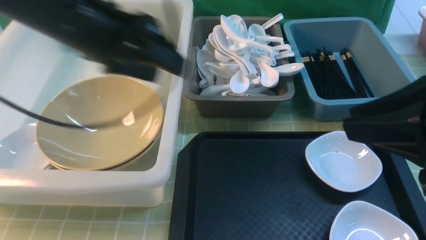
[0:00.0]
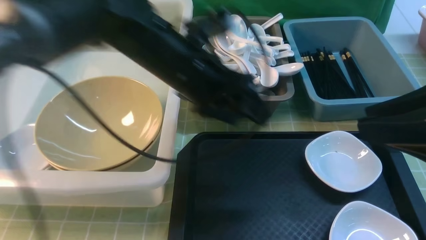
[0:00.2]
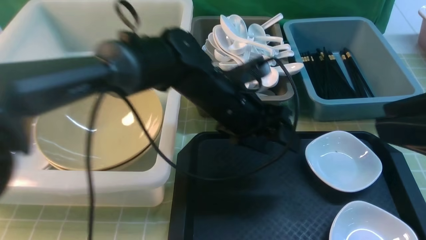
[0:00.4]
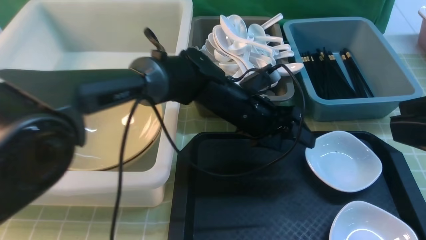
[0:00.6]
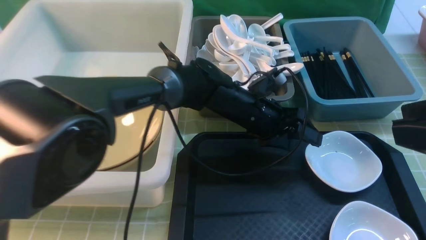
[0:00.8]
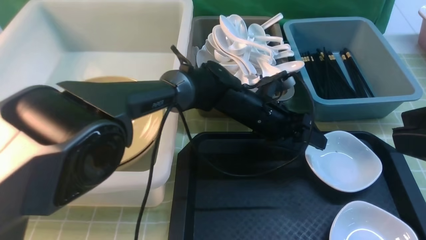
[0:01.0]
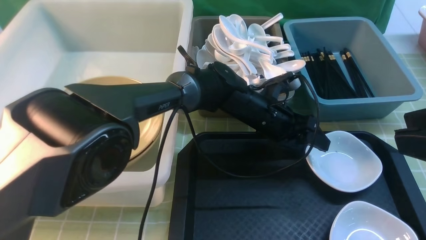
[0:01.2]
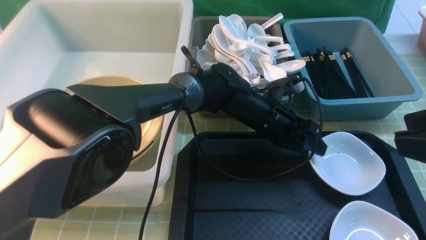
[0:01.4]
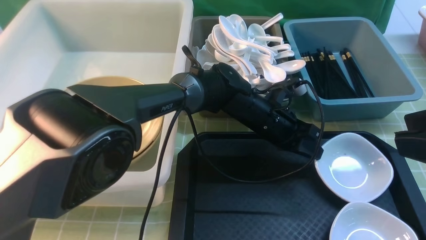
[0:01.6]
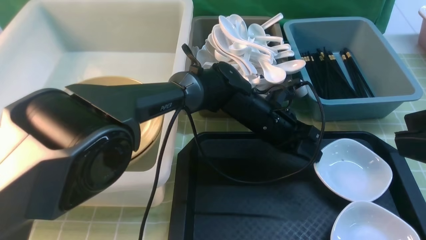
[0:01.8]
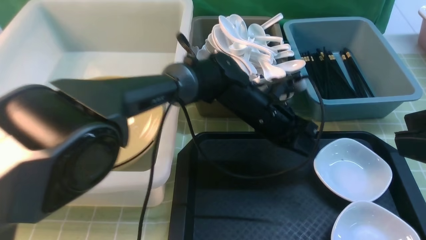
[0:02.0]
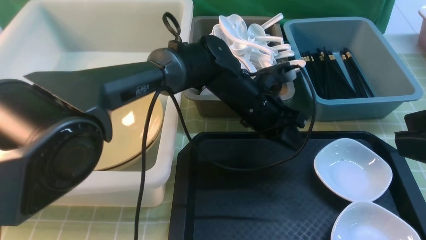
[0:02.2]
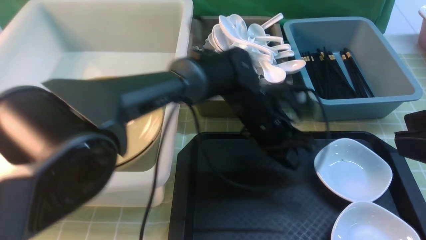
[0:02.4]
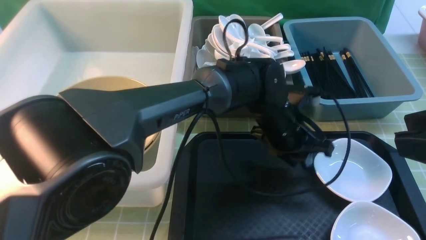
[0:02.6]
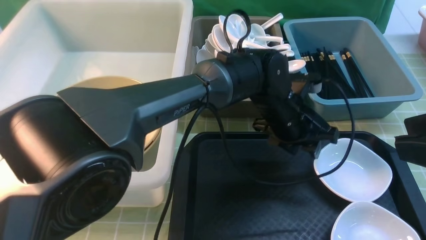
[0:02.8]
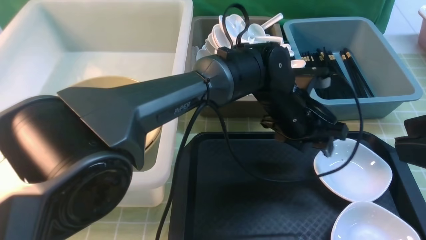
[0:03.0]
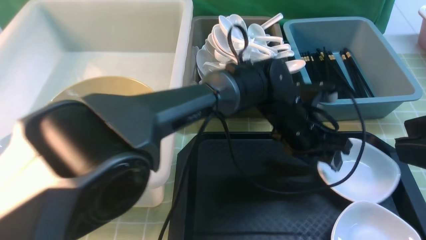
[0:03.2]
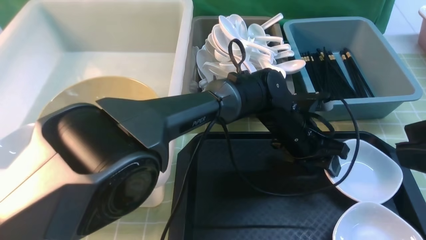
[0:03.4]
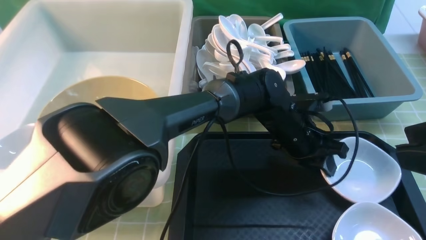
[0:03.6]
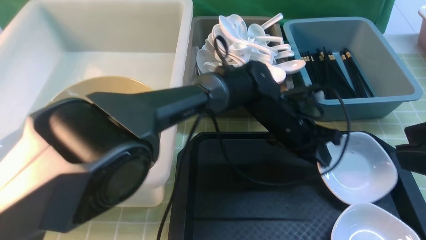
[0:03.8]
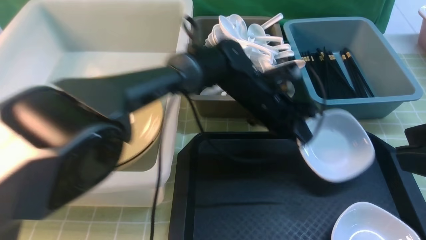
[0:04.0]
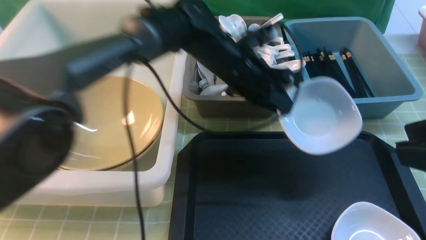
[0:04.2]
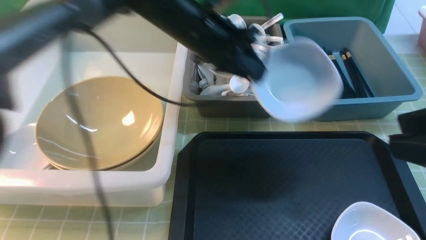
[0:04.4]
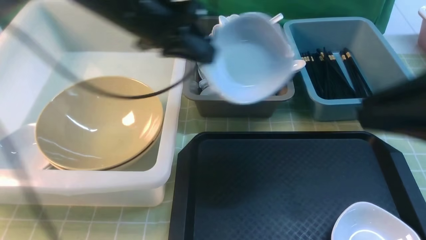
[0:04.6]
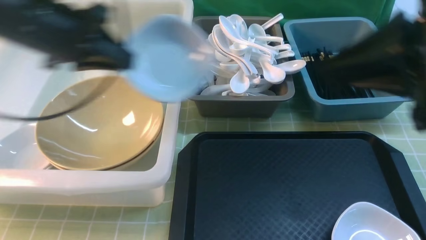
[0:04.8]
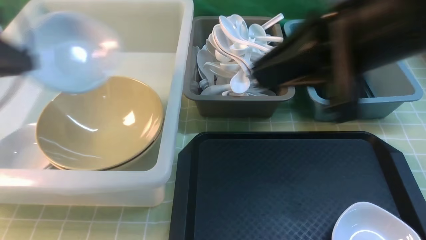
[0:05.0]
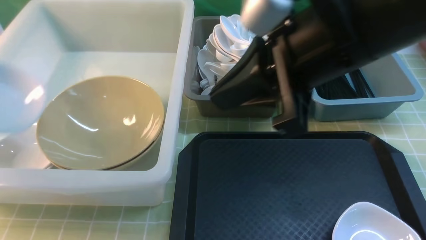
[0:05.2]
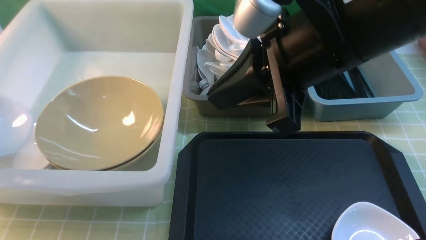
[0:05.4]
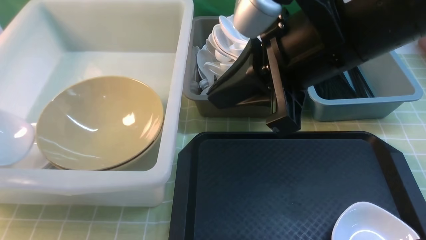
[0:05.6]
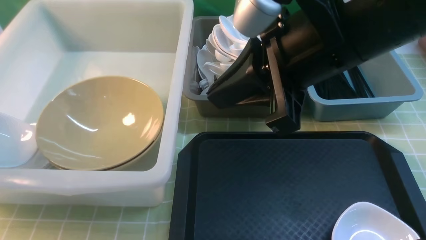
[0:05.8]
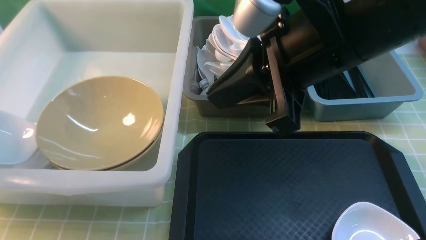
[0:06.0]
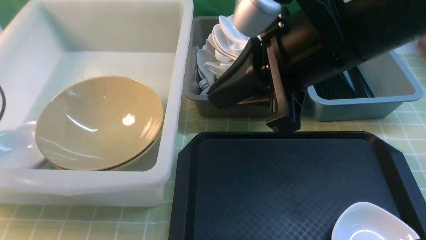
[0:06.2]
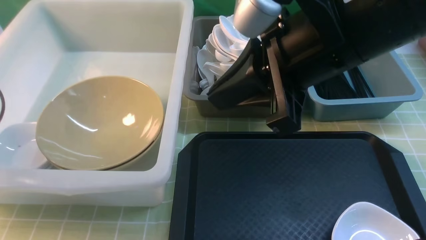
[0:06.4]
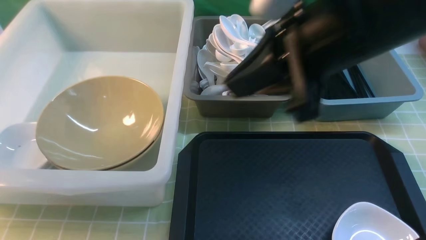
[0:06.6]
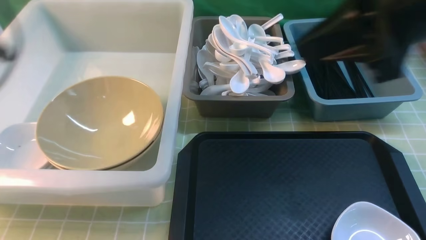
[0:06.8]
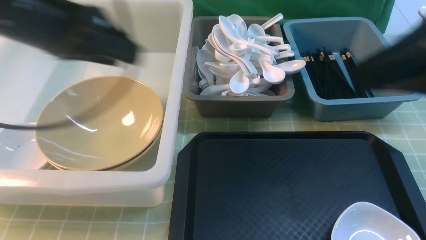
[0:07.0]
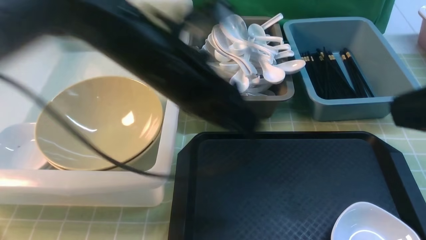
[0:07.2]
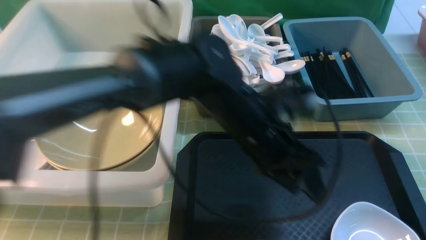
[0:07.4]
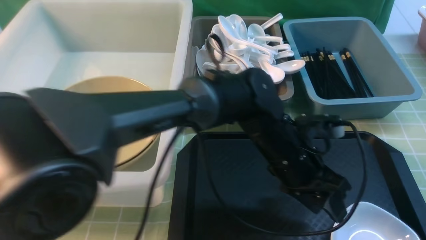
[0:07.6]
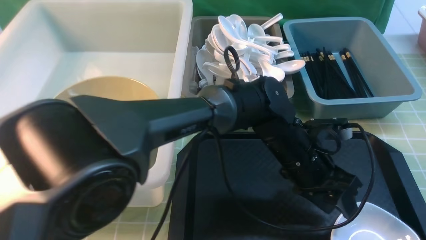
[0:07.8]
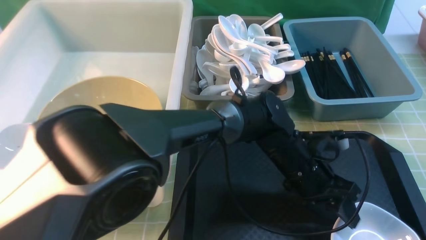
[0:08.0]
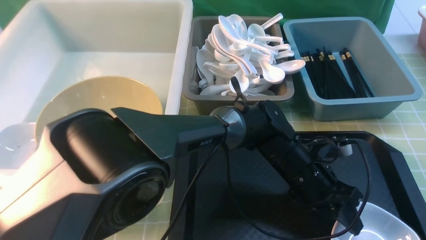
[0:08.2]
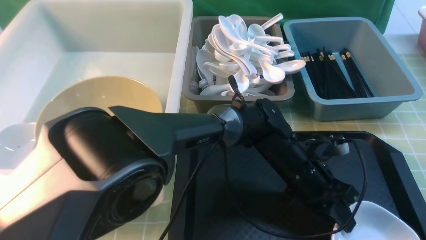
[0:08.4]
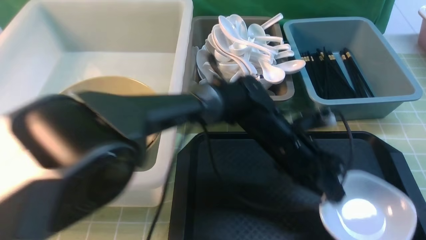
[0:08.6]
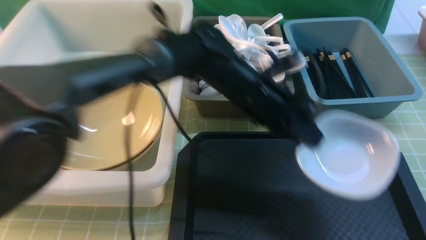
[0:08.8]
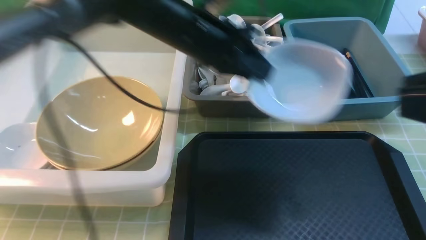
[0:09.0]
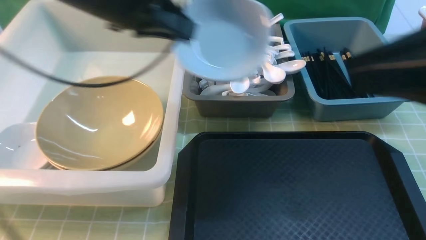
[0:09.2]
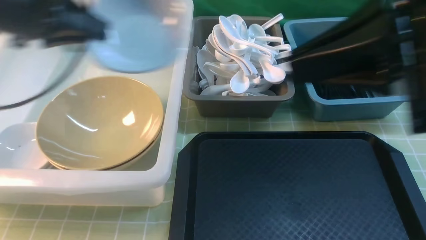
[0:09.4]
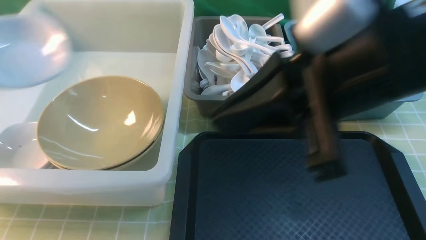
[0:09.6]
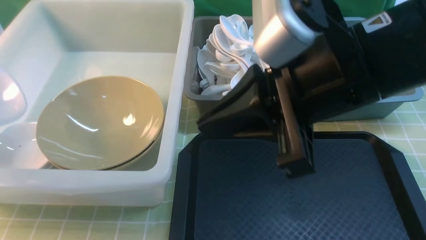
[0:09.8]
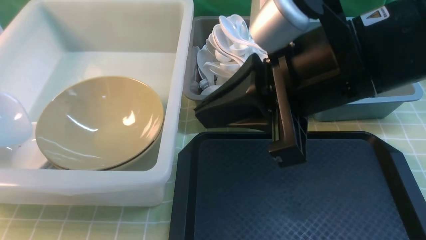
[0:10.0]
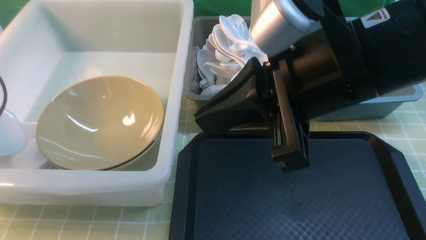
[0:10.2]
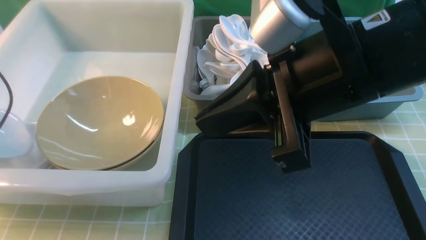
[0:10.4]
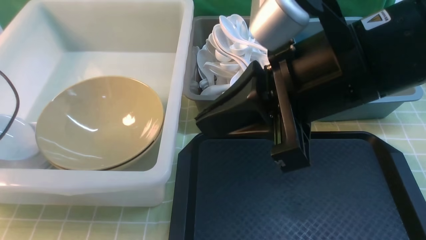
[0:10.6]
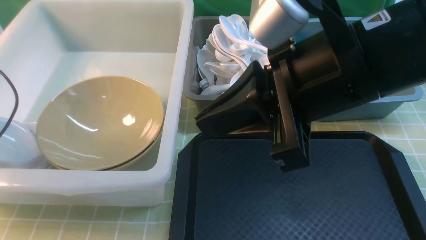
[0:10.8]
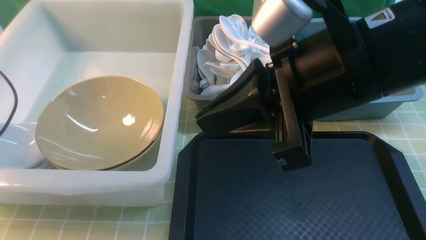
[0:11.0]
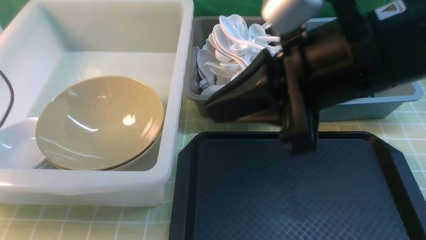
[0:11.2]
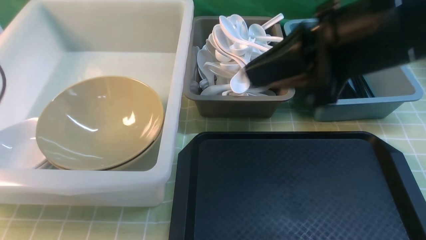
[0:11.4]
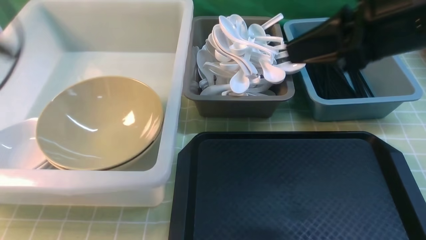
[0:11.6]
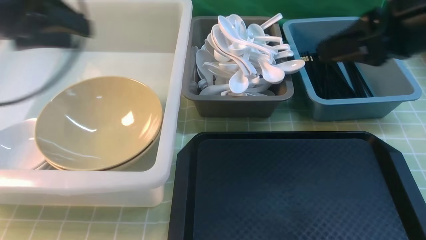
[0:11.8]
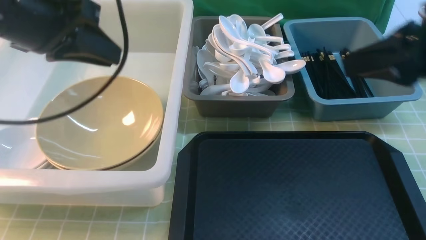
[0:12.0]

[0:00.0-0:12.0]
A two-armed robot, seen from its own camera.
Task of the whole recording: on green table put chopsticks spoon bowls plates into blue grey white boxes.
Step, 0:00.0 to 0:04.0: use the left arm to grab the plate.
Step, 0:04.2 to 0:06.4: use the left arm to put the plate into the large storage box on the left.
Step, 0:06.6 to 0:08.6: use the left arm to grab the plate.
Step, 0:08.8 to 0:11.4: use the left arm to put the plate into the large storage box on the left.
0:00.0 to 0:01.6: The left gripper heads to the right and downward, covering about 30 cm, and closes its fingers.
0:01.6 to 0:03.0: The left gripper changes place by about 5 cm, and opens.
0:03.0 to 0:04.4: The left gripper shifts roughly 20 cm to the left and upward, and closes up.
0:04.4 to 0:06.0: The right gripper heads to the left and forward, covering roughly 20 cm, and closes up. The left gripper goes some 35 cm to the left.
0:06.0 to 0:07.6: The left gripper goes about 50 cm to the right, and opens up. Meanwhile the right gripper travels to the right and backward by roughly 20 cm.
0:07.6 to 0:09.0: The left gripper heads to the left, upward and forward, covering roughly 25 cm, and closes.
0:09.0 to 0:10.4: The left gripper travels to the left by about 35 cm, while the right gripper travels to the left and forward by about 15 cm.
0:10.4 to 0:12.0: The right gripper shifts some 15 cm to the right. The left gripper goes about 25 cm to the right and upward, and opens, then closes again.

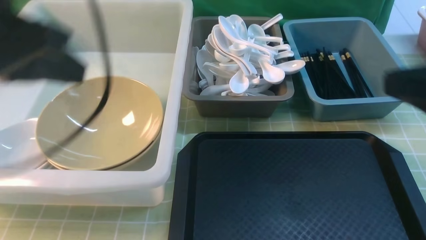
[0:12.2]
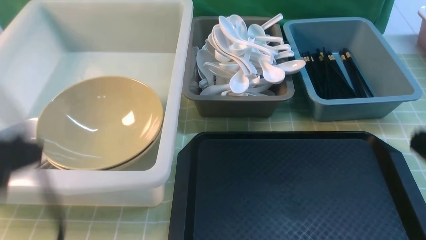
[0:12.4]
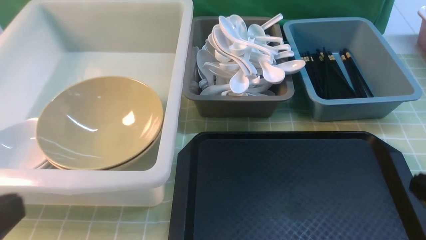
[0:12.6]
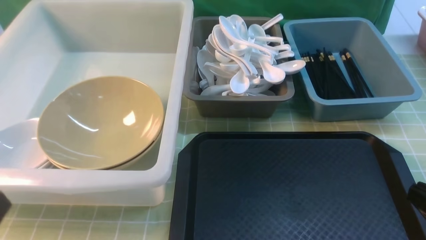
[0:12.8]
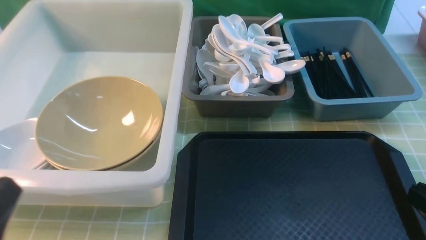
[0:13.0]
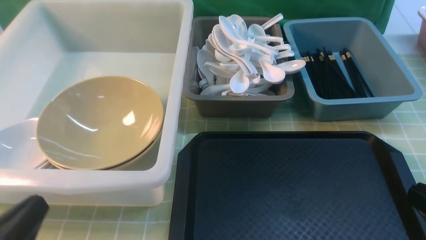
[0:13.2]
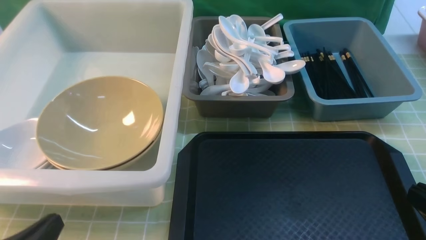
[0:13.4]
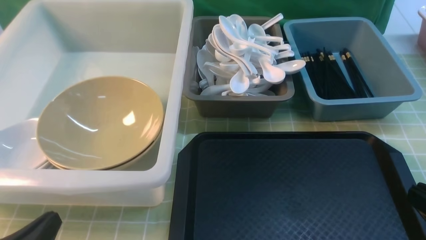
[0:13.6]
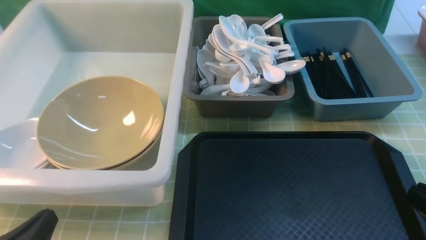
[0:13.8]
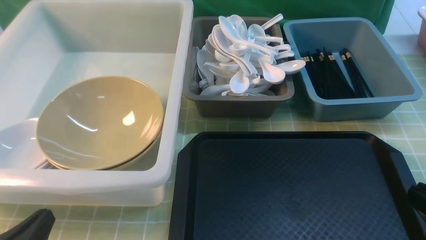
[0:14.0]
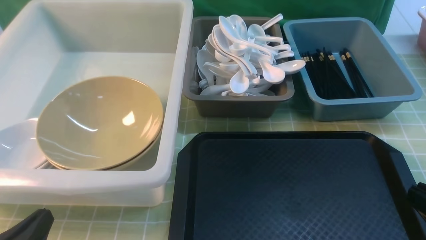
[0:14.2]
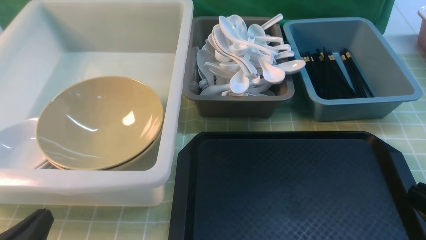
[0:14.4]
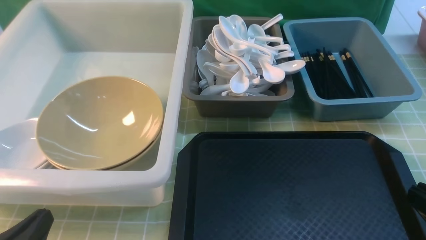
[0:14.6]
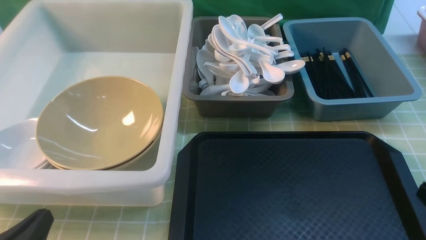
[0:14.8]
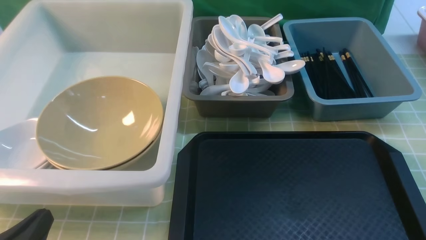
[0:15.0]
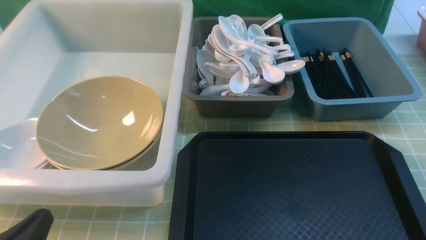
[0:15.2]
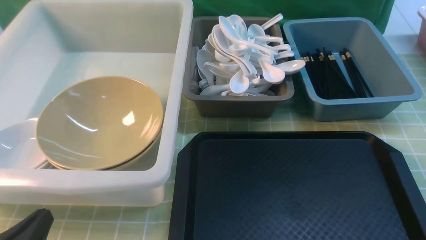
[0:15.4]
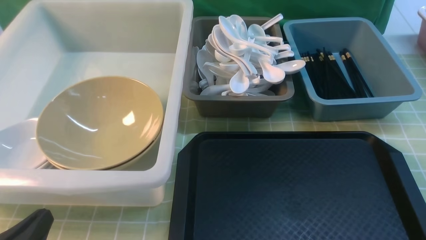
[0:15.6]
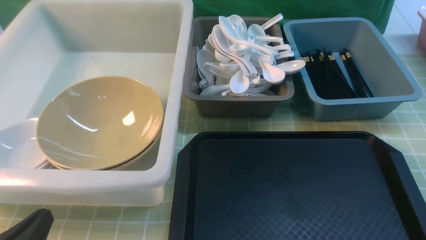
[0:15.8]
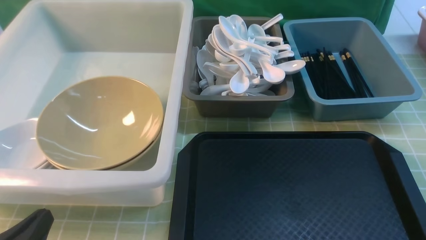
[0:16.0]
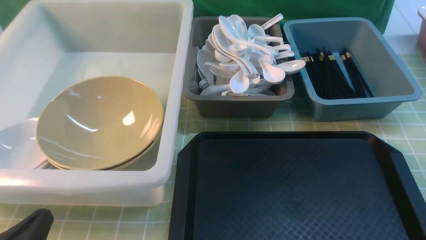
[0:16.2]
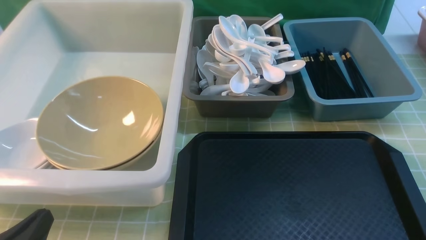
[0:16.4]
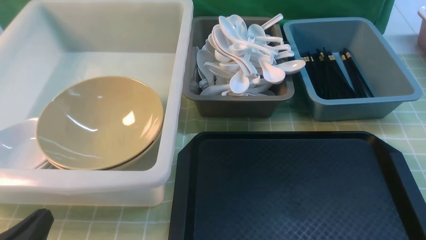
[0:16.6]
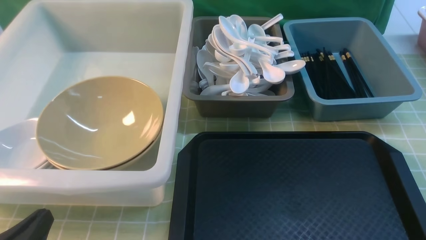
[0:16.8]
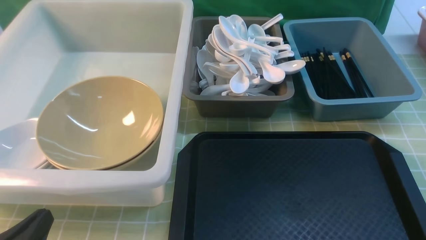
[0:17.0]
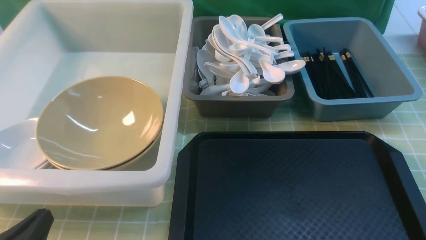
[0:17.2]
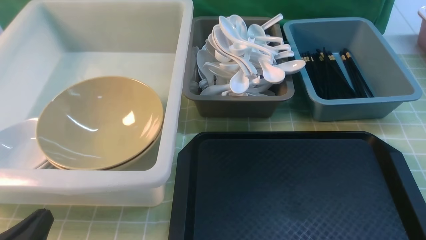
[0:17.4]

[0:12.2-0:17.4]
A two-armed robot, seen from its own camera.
Task of the whole recording: on green table put chopsticks spoon bowls plates into blue grey white boxes.
0:12.2 to 0:14.0: The right gripper goes approximately 15 cm downward and backward, while the left gripper is displaced downward and backward by about 25 cm.
0:15.6 to 0:17.4: Neither gripper changes place.
